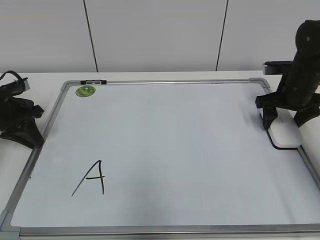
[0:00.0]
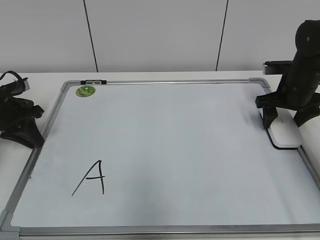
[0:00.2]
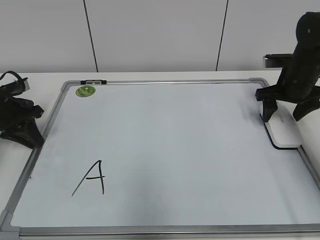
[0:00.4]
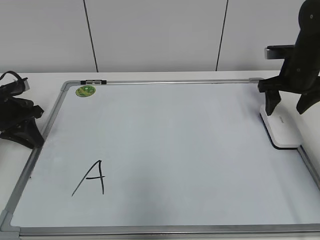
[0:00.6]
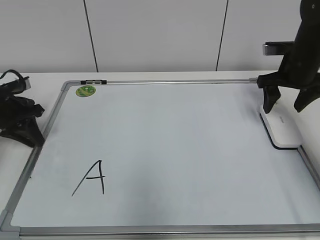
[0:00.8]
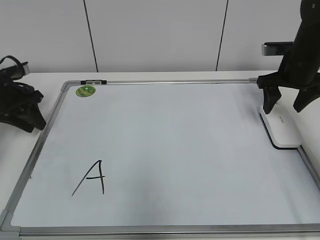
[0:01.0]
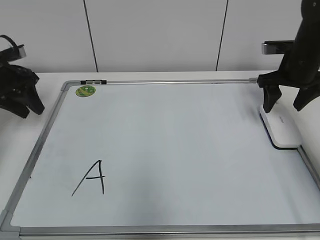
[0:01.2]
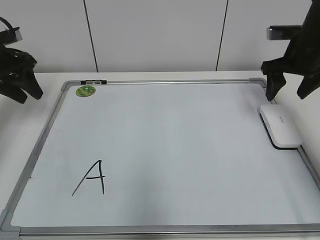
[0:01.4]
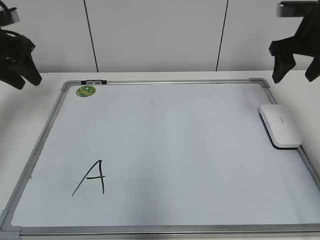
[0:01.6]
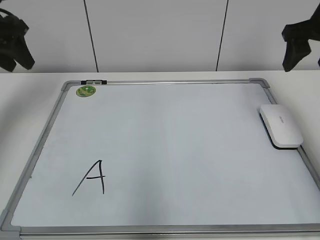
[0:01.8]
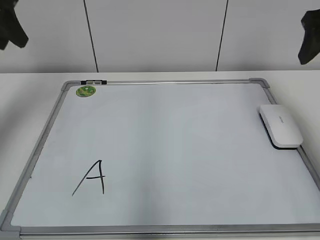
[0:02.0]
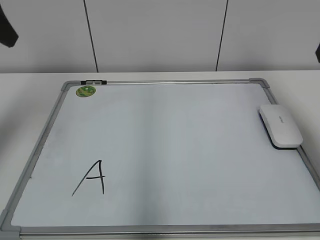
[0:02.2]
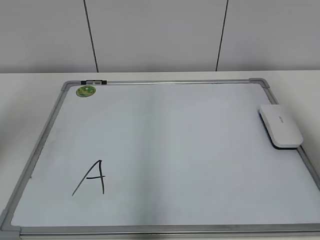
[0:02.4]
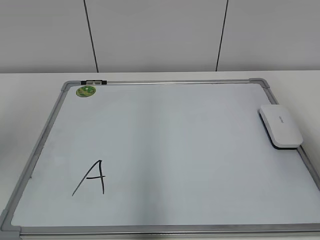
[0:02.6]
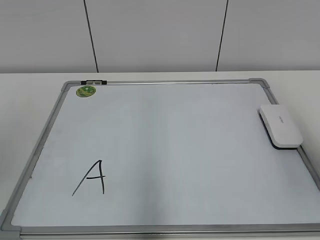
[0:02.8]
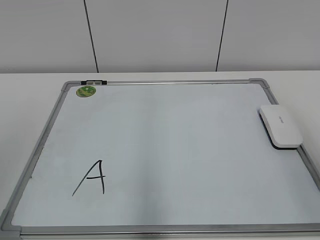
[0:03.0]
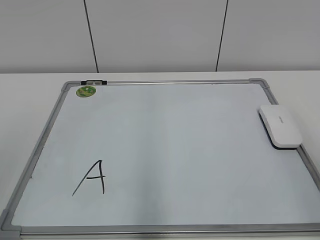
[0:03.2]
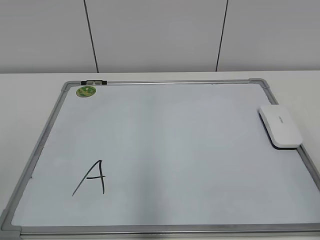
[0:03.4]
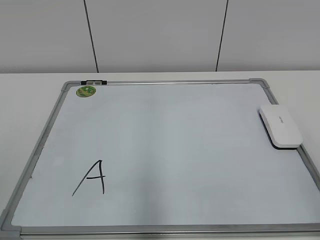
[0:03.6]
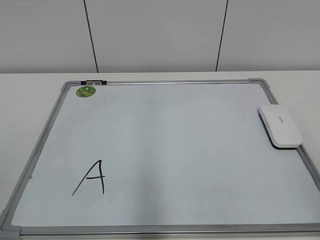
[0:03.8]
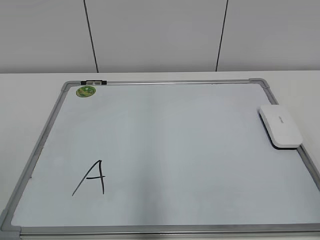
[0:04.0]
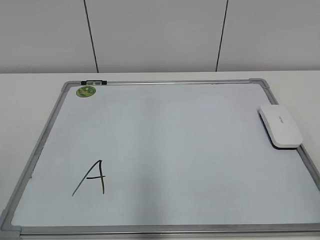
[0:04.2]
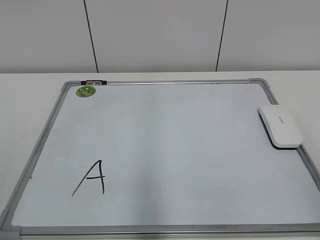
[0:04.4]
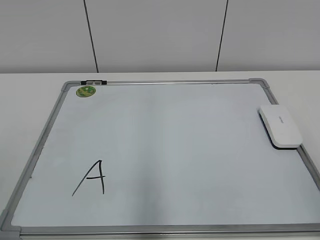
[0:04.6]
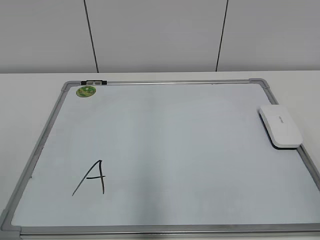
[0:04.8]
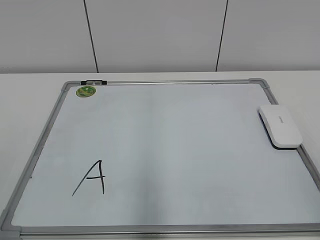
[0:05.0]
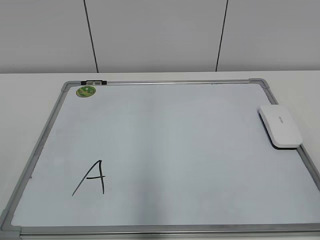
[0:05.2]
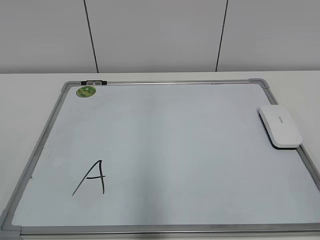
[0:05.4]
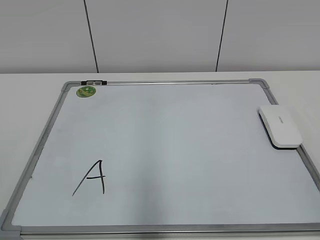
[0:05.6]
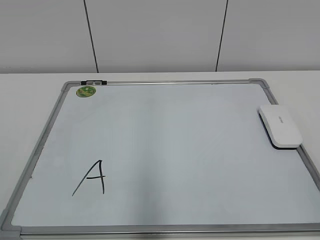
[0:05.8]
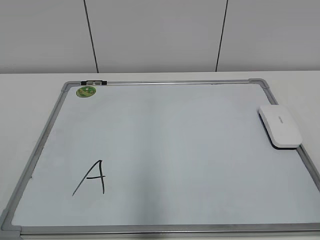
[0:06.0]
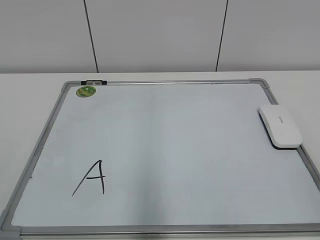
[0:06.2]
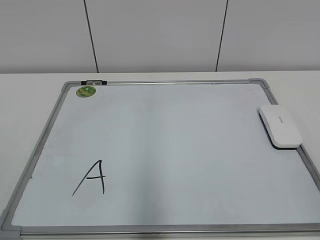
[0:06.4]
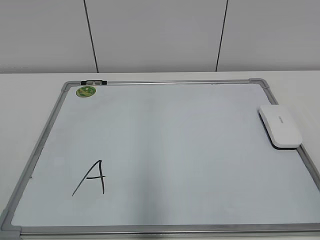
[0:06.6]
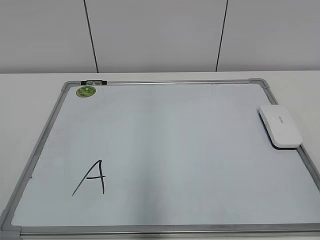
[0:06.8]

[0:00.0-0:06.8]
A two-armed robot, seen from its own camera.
Task of the whole recording: pick up the eraser on the blackboard and erase the letter "a".
0:00.0 to 0:01.4: The two grippers go approximately 10 cm upward. The left gripper opens up.
0:01.4 to 0:02.8: Both grippers travel together backward and upward, approximately 30 cm.
0:02.8 to 0:04.0: The right gripper goes approximately 15 cm backward and downward.
0:05.4 to 0:06.8: The two grippers keep their place.
